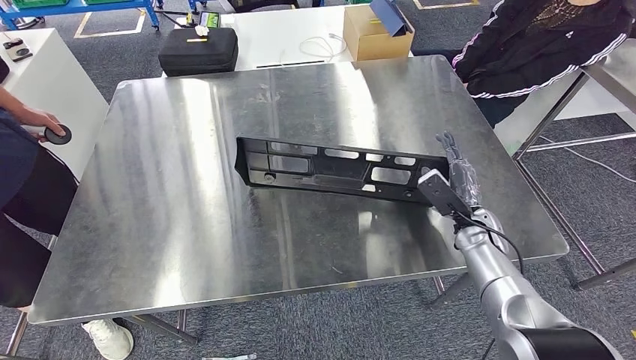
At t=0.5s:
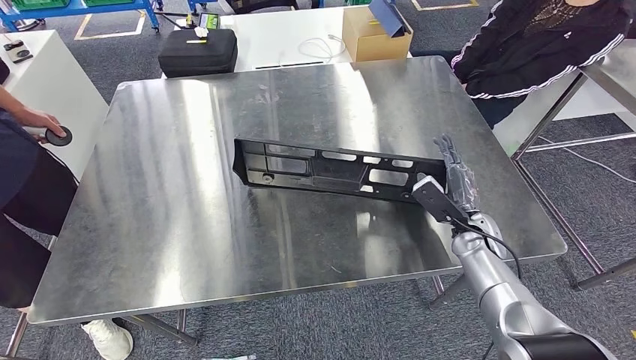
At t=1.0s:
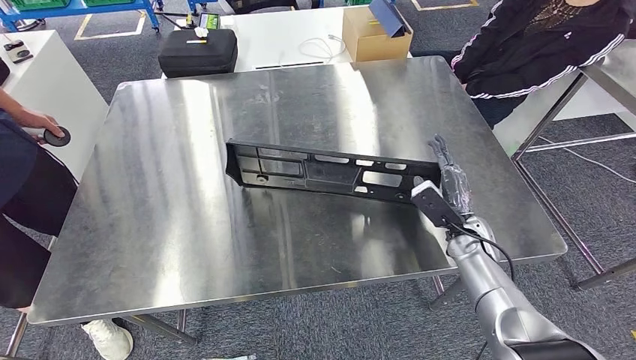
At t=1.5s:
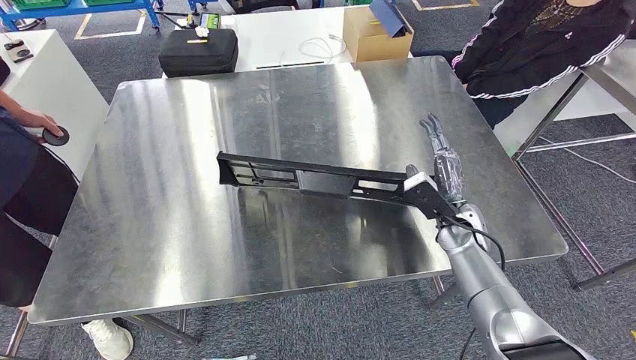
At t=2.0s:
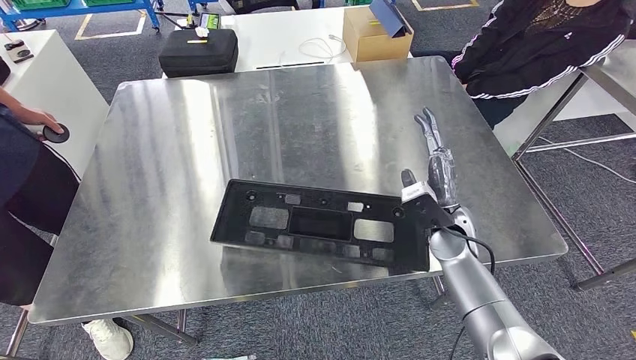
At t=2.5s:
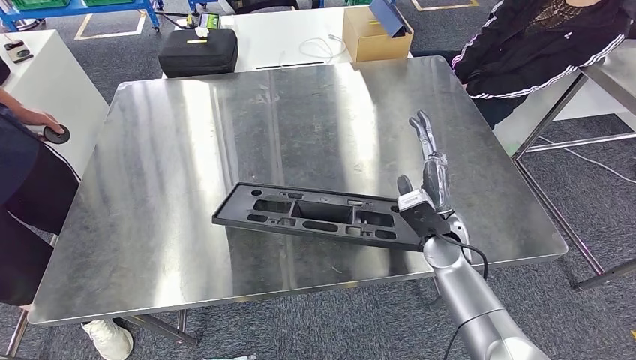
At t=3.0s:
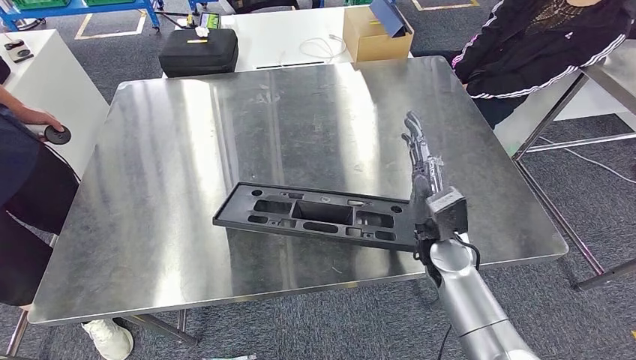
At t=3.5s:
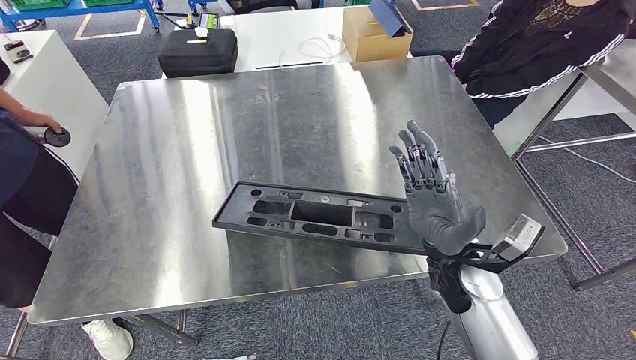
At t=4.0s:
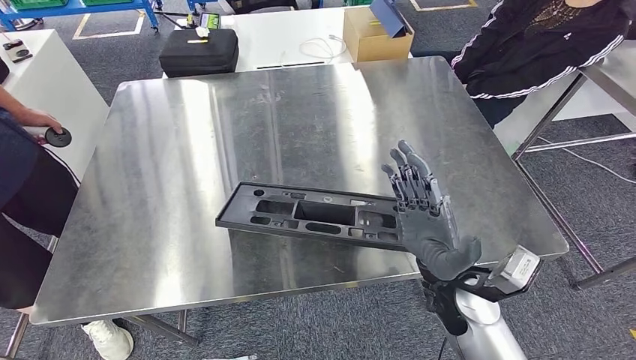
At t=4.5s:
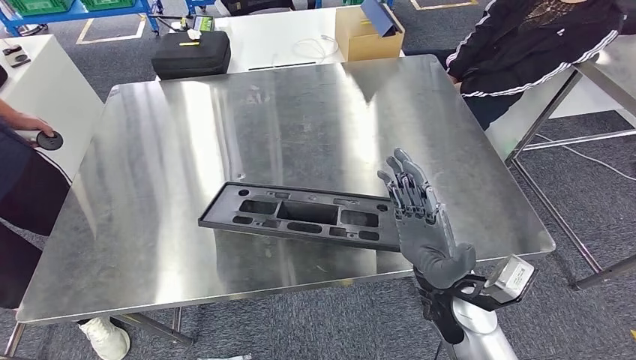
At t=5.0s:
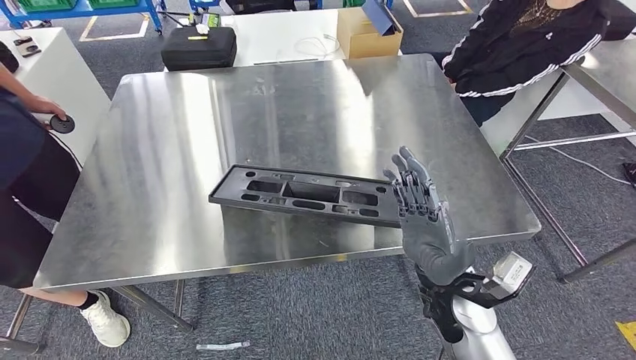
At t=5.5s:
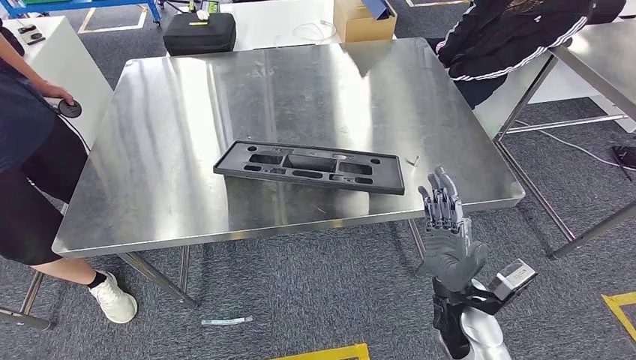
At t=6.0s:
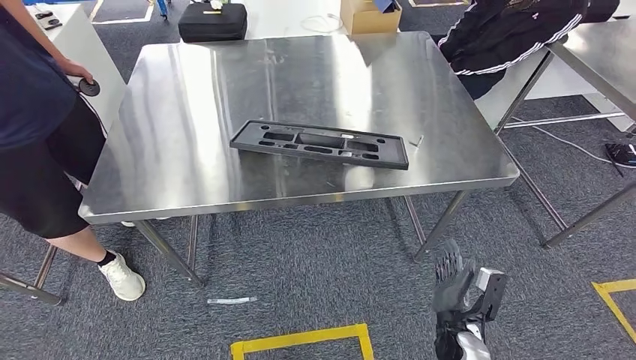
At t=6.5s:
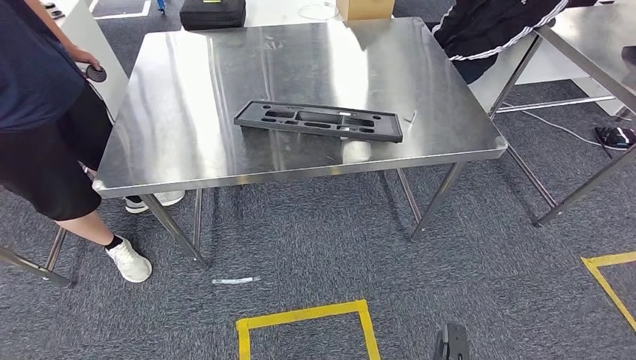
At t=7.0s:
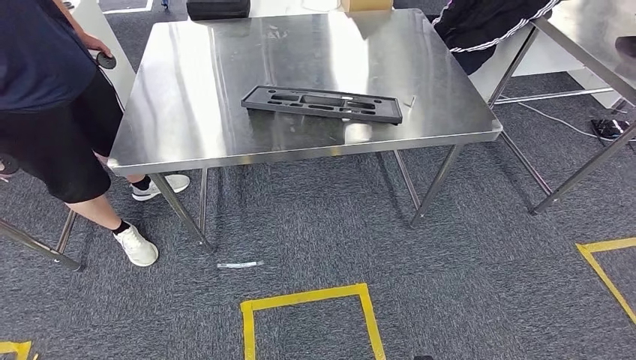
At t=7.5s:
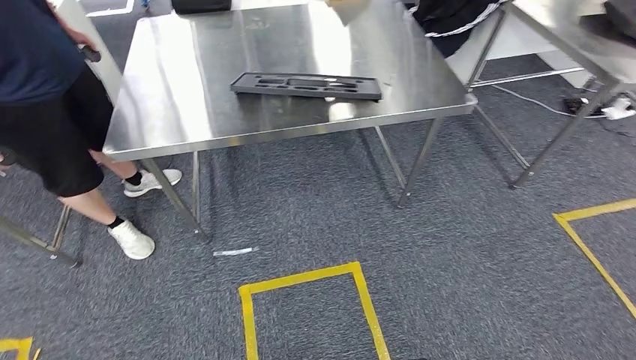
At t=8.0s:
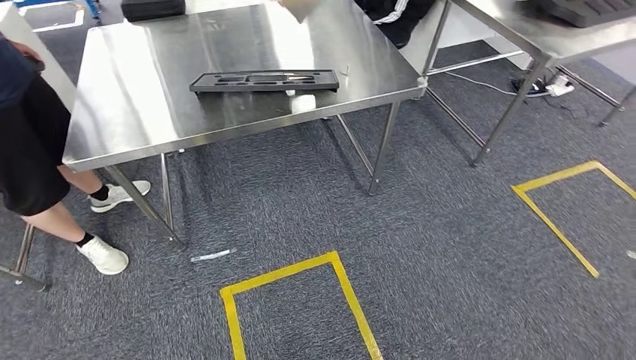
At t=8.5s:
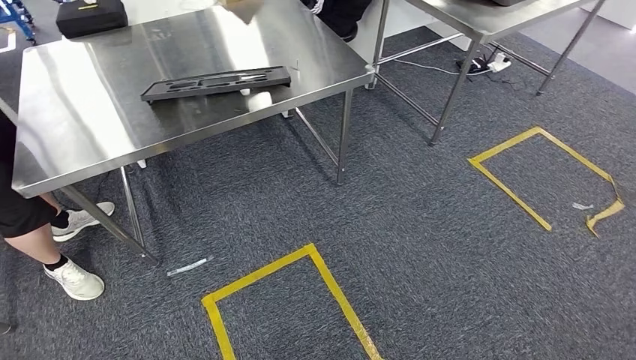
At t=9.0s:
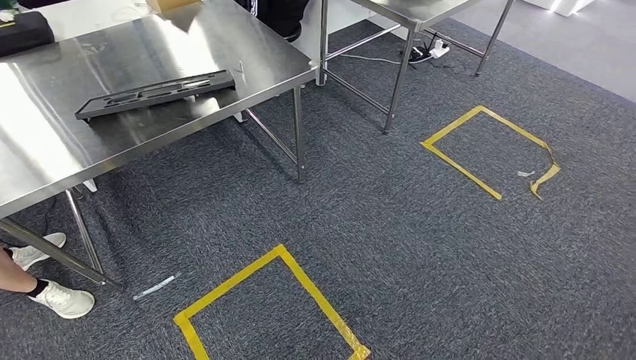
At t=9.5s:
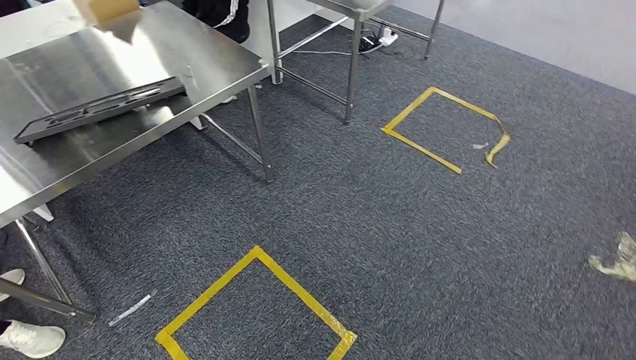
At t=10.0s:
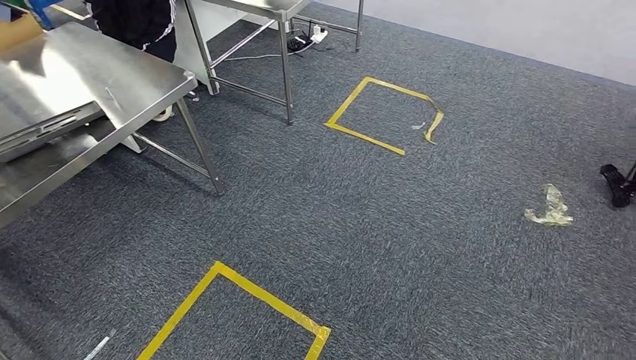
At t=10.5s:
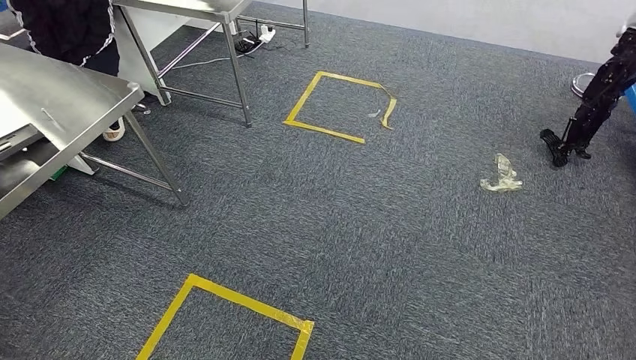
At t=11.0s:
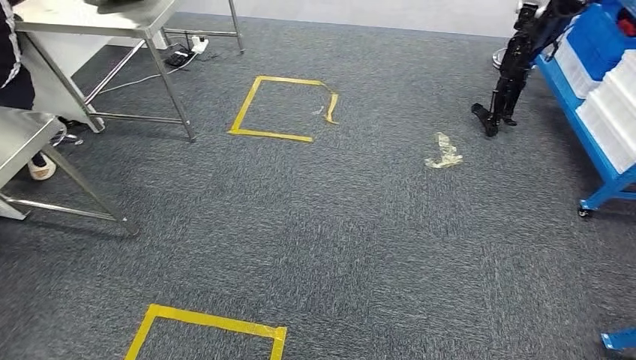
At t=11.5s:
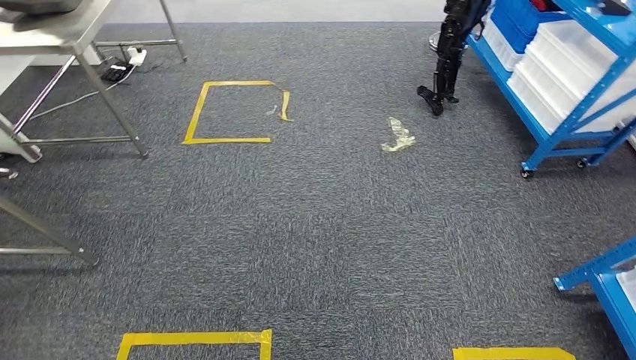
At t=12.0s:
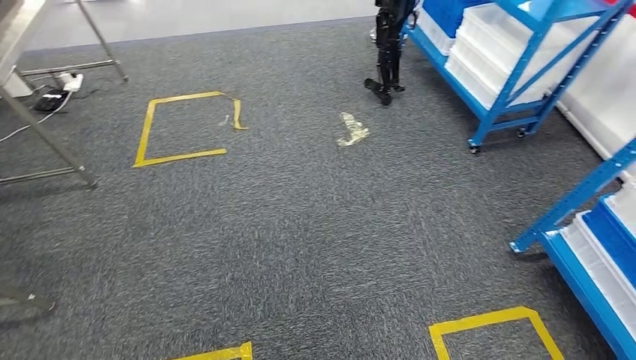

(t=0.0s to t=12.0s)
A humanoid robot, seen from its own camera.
t=0.0s - t=2.0s: The right hand is displaced to the left by roughly 10 cm.
t=2.0s - t=4.0s: The right hand travels backward by some 10 cm.

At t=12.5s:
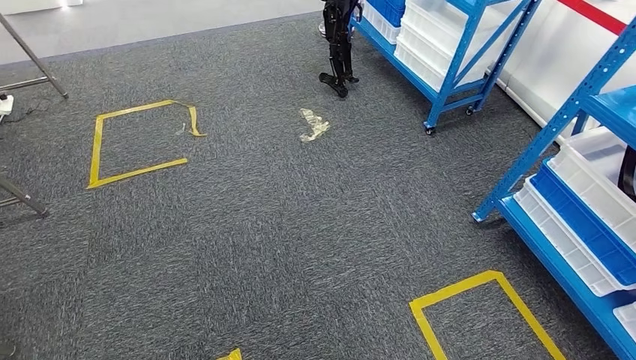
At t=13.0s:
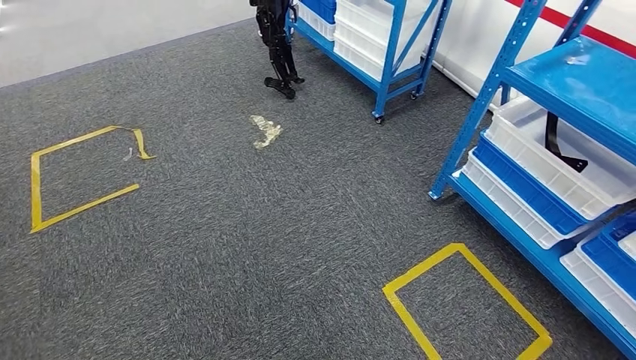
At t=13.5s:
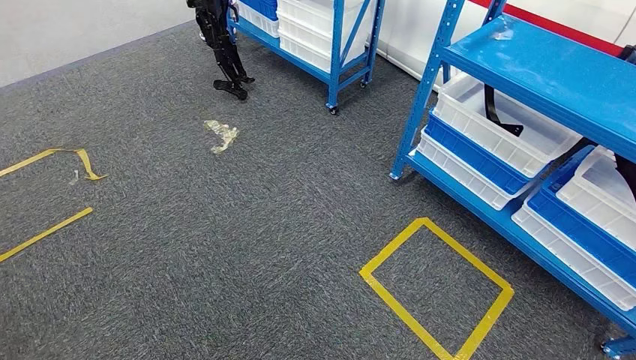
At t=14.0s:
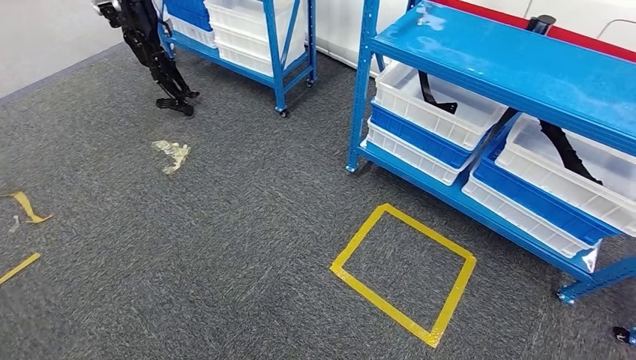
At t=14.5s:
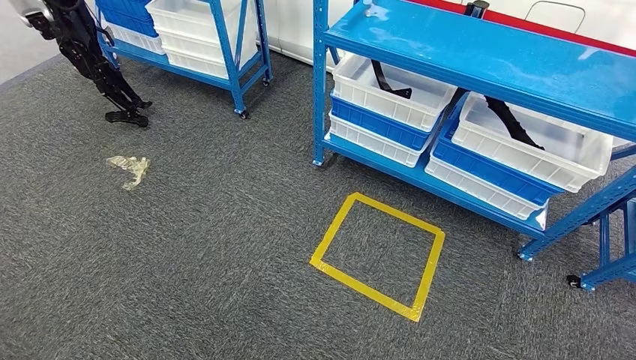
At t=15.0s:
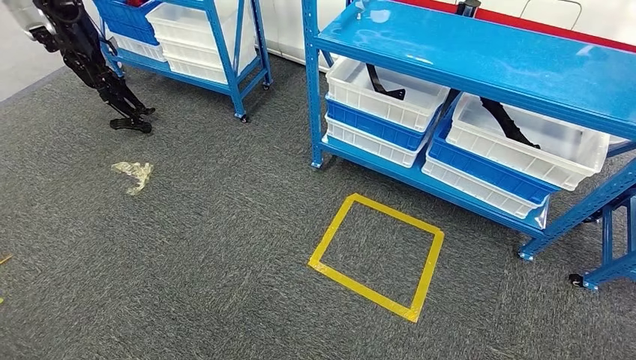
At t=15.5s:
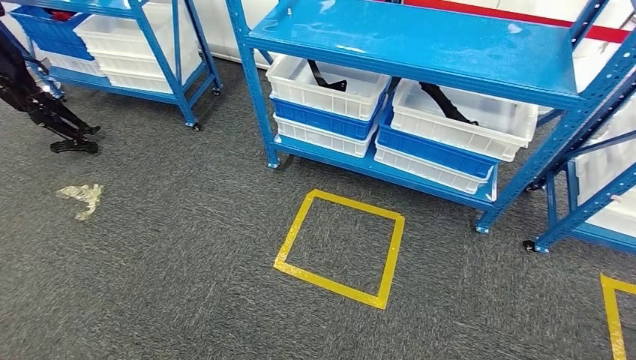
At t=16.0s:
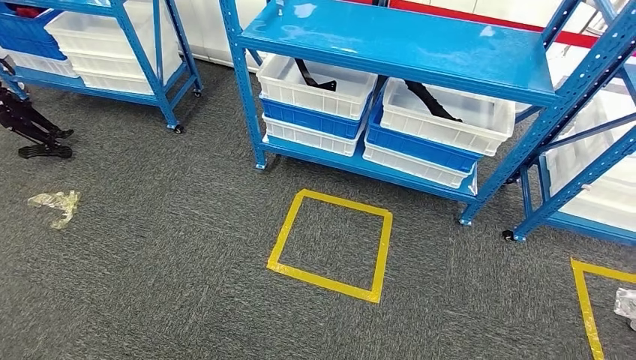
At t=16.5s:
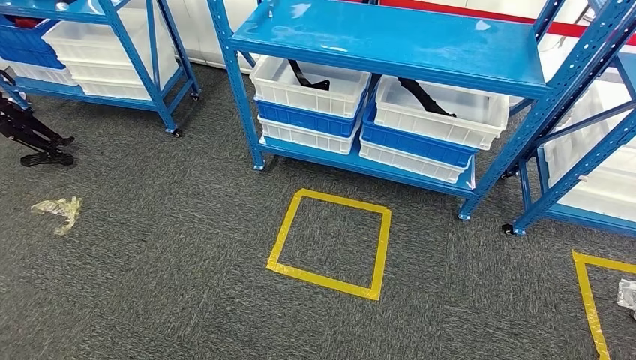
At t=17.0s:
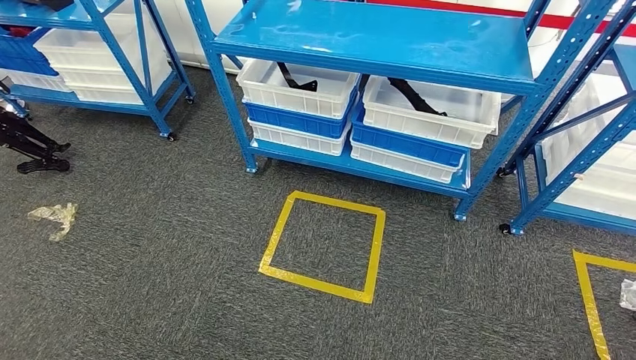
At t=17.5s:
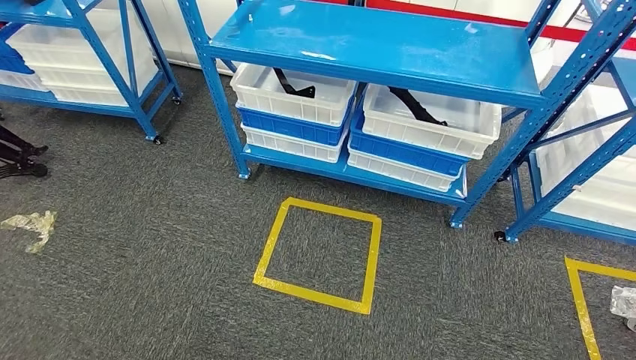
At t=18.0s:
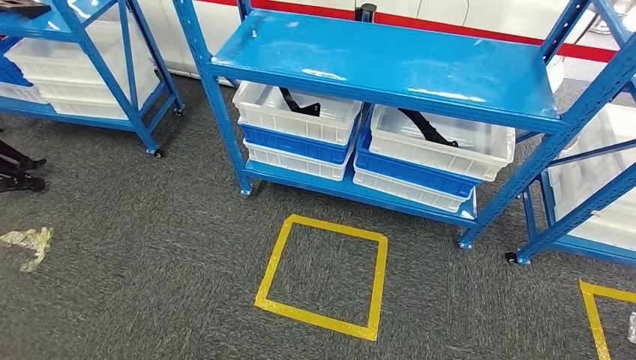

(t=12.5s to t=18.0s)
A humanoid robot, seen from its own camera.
Step, t=12.5s - t=18.0s: Move to the initial position of the shelf.

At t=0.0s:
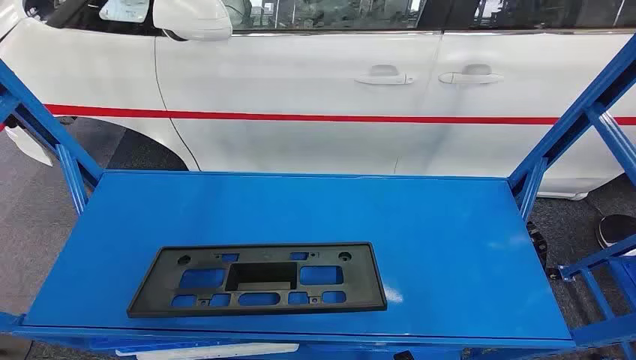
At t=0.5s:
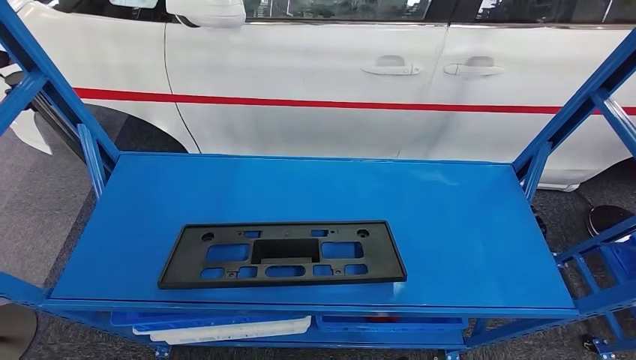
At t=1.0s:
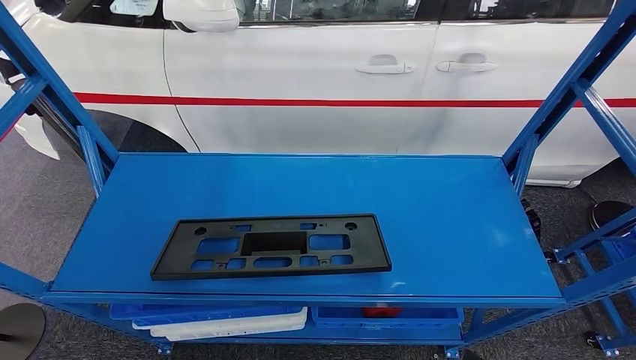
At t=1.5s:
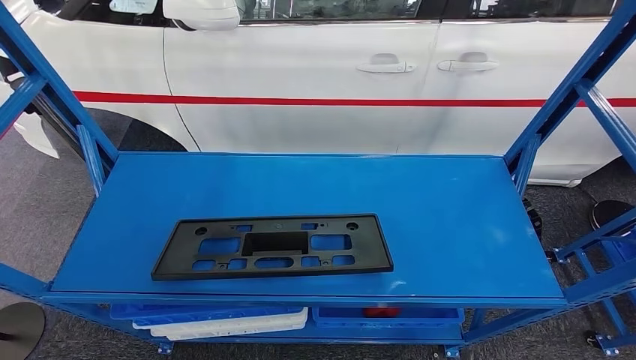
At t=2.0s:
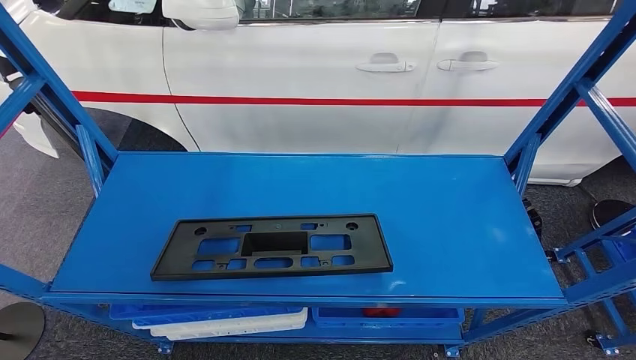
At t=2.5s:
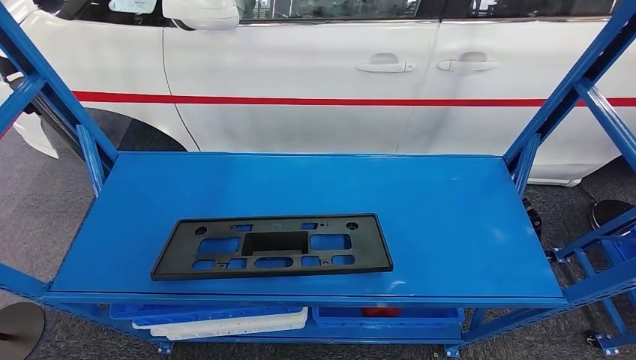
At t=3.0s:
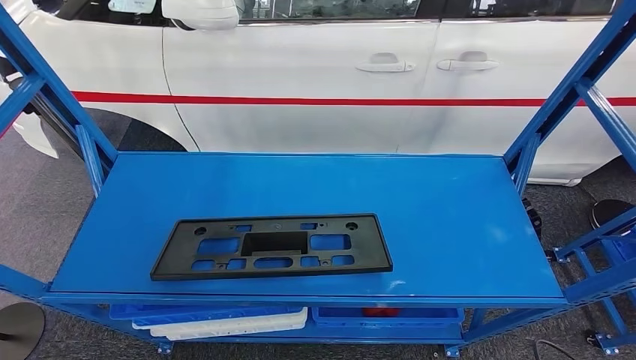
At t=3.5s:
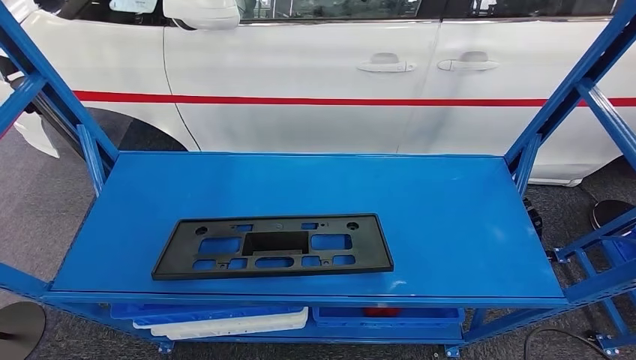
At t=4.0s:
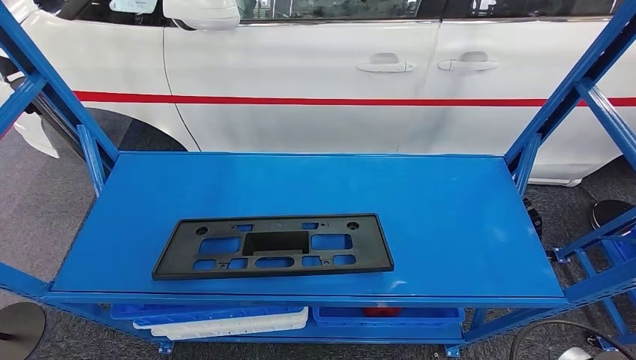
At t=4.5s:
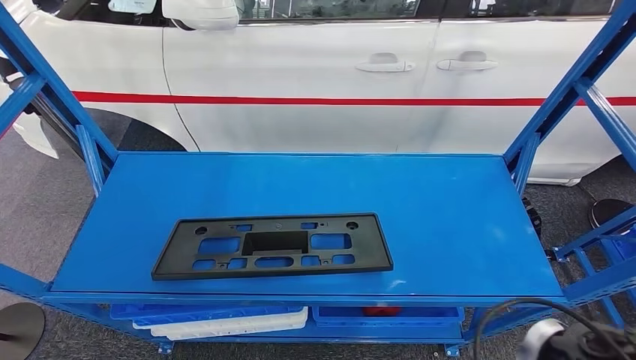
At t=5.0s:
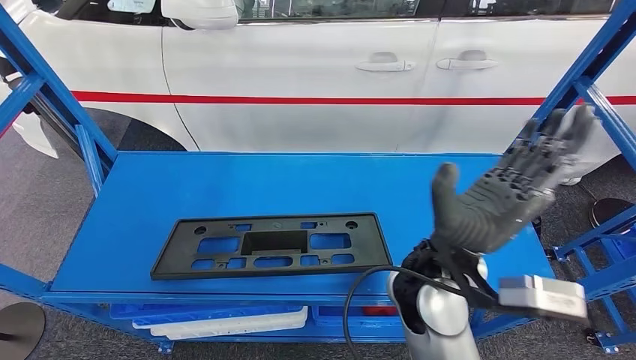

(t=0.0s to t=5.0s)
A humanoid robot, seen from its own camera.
t=2.5s - t=5.0s: The right hand shifts about 40 cm upward, to the left and forward.
